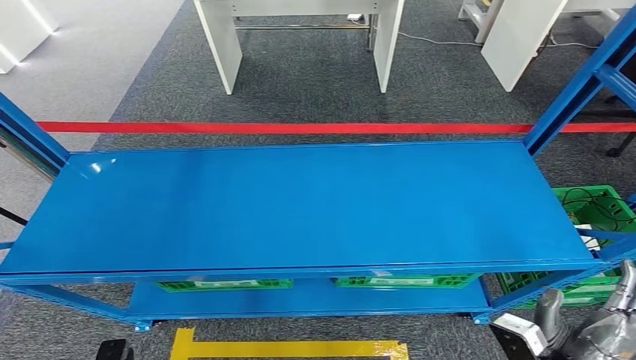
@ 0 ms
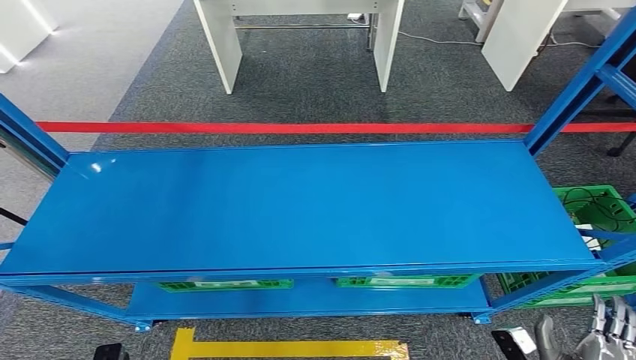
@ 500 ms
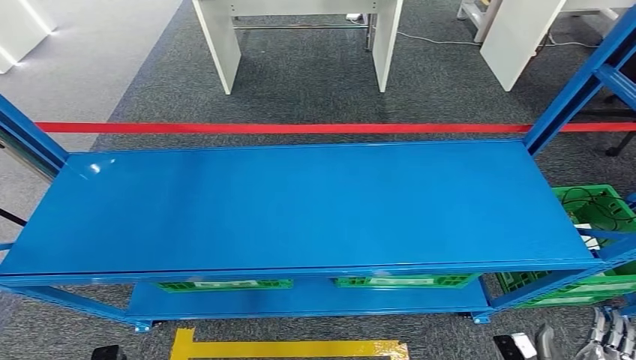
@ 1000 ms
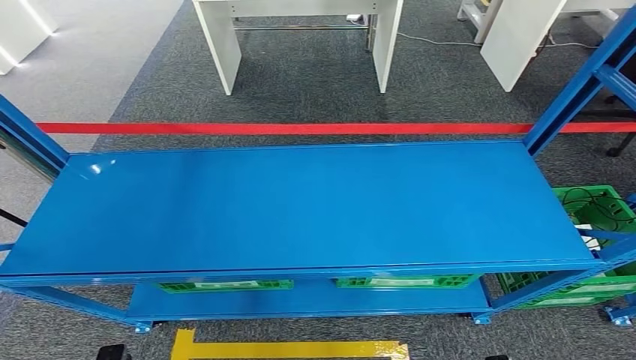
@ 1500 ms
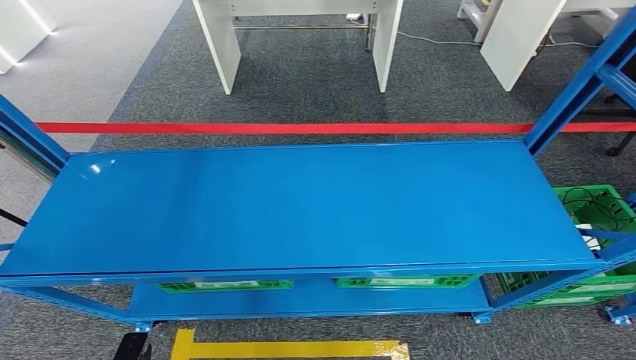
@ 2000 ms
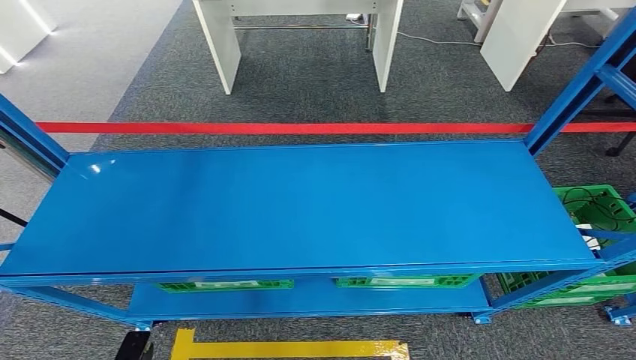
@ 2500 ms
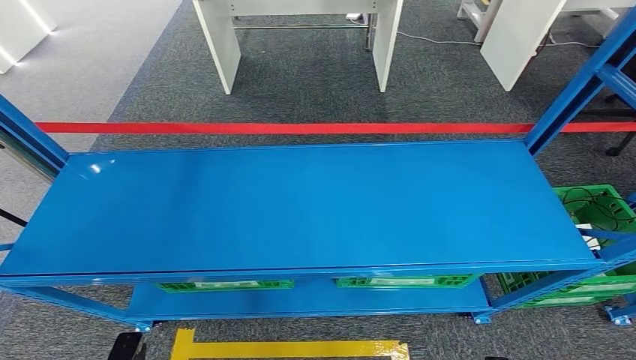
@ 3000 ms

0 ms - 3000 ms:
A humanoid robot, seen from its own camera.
Step, 0 ms - 3000 ms: Return to the initial position at the workbench.
0 ms - 1500 ms: The right hand moves downward and backward, roughly 20 cm.
